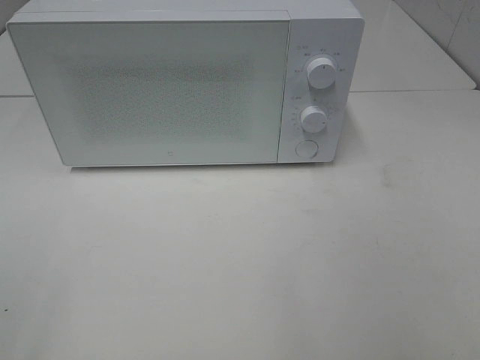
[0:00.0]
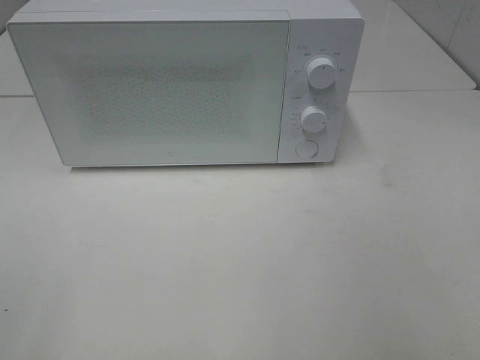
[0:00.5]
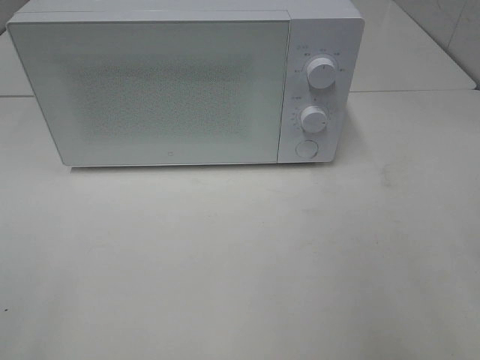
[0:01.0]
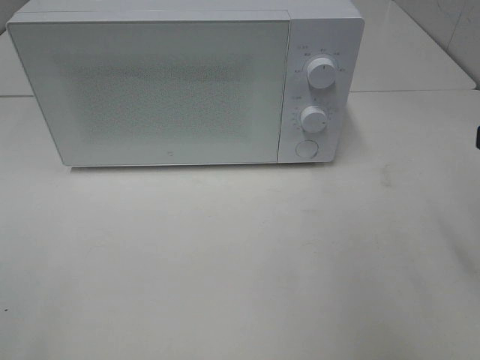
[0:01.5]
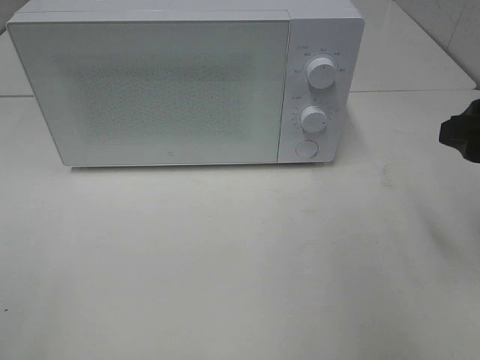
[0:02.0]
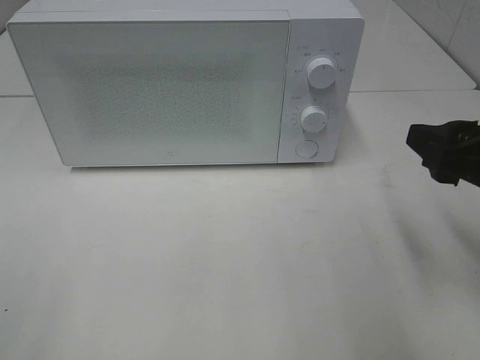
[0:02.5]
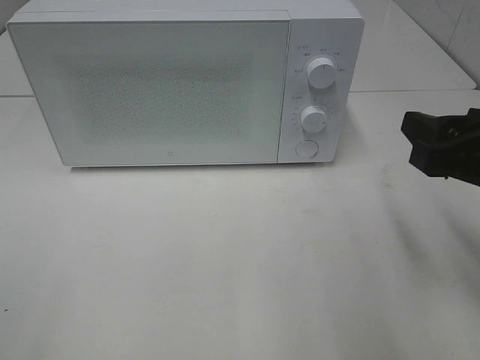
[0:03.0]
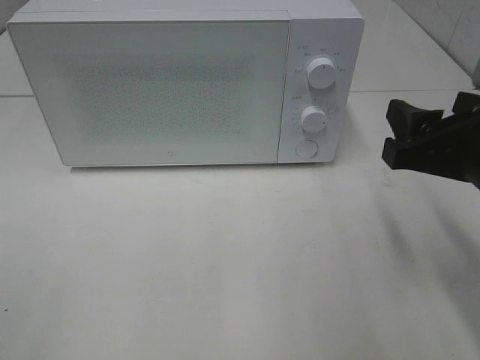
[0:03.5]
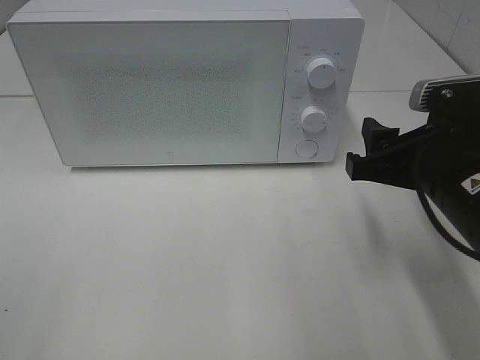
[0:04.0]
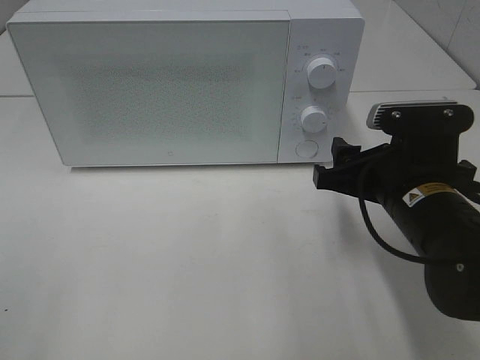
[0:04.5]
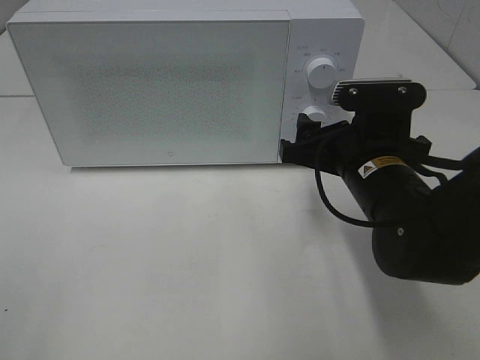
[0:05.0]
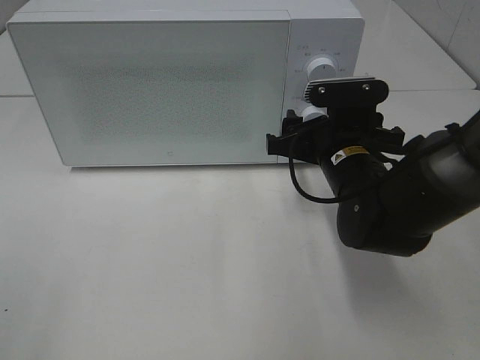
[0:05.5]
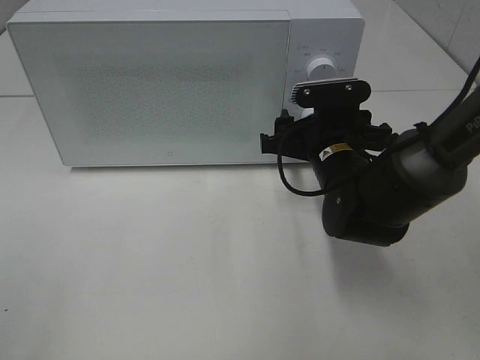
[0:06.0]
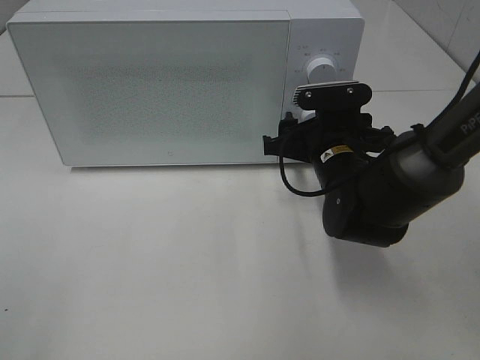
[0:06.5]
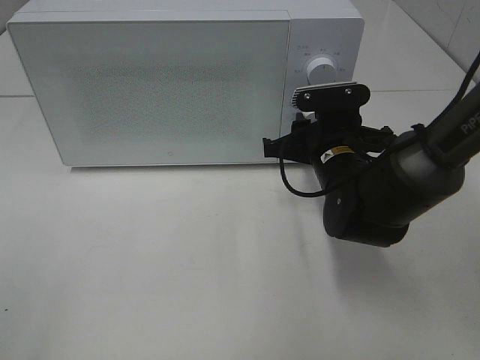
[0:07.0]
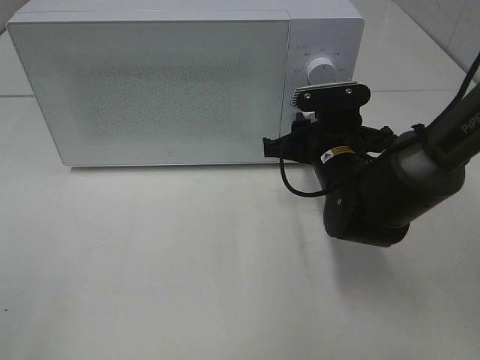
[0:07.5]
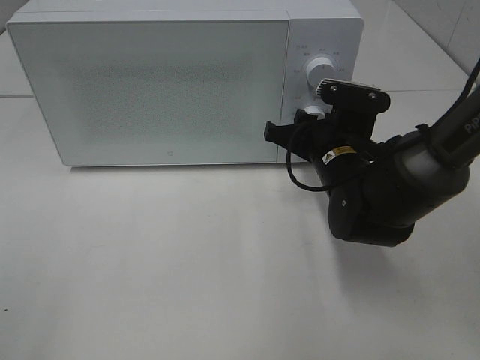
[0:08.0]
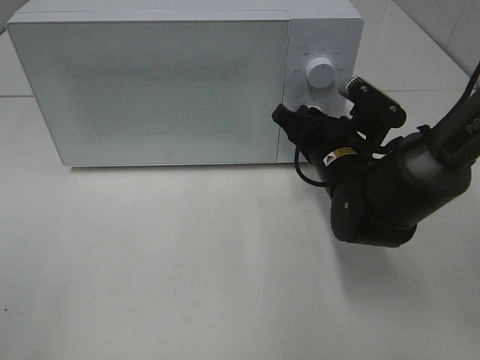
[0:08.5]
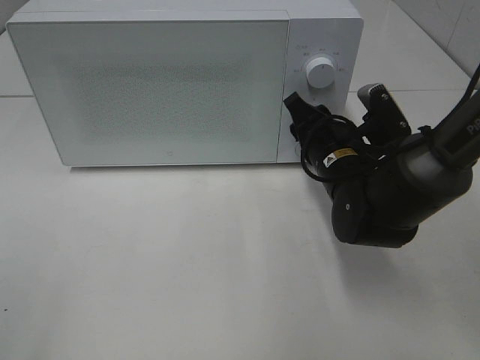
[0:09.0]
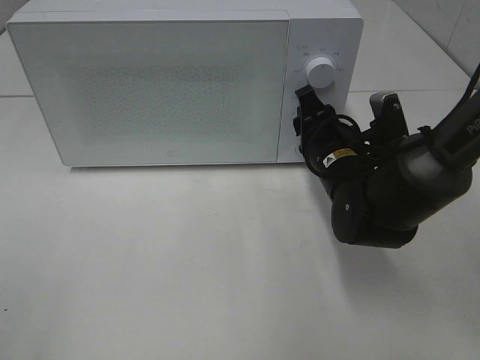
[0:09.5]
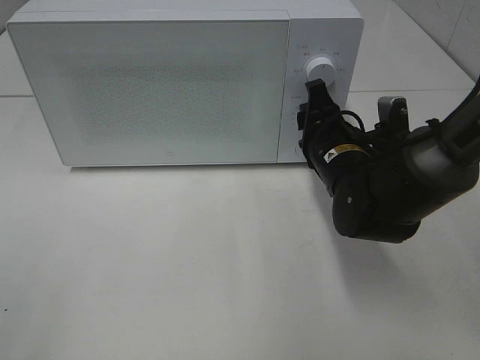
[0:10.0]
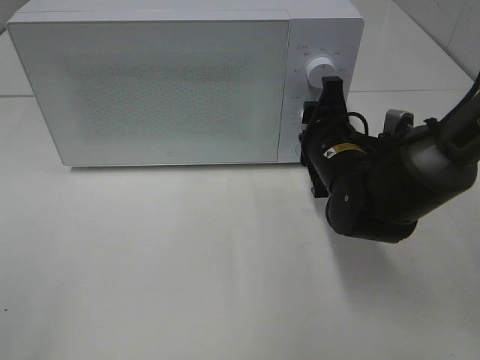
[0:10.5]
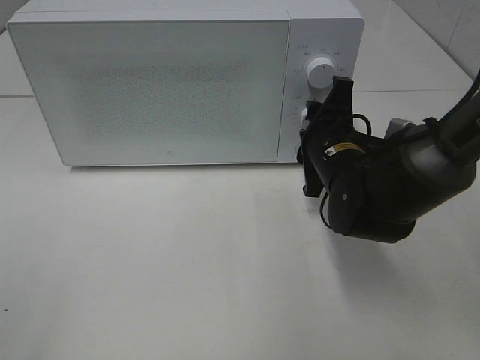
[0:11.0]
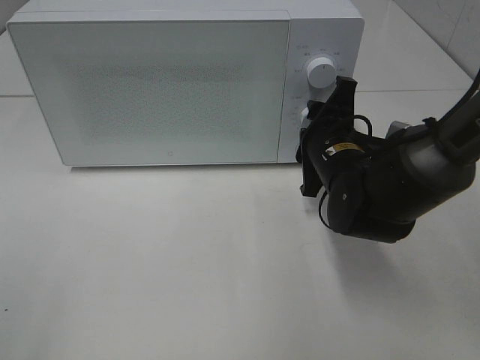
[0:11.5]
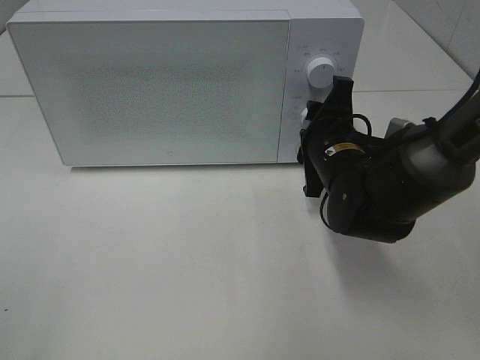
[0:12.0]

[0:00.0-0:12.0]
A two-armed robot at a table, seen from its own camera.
Task of the whole recording: Heat the burger.
0:00.0 to 0:02.0: The right gripper moves forward, some 20 cm.
0:02.0 to 0:04.0: The right gripper moves to the left and downward, approximately 10 cm.
0:04.0 to 0:06.0: The right gripper travels forward, to the left and downward by roughly 15 cm.
0:06.0 to 0:08.0: The right gripper closes up.

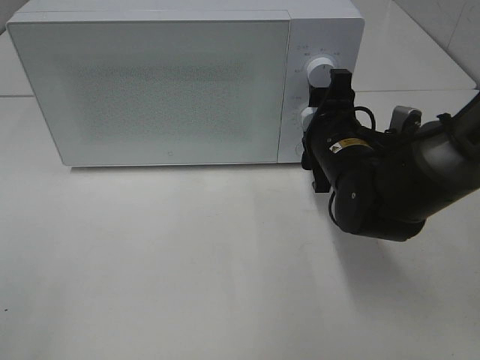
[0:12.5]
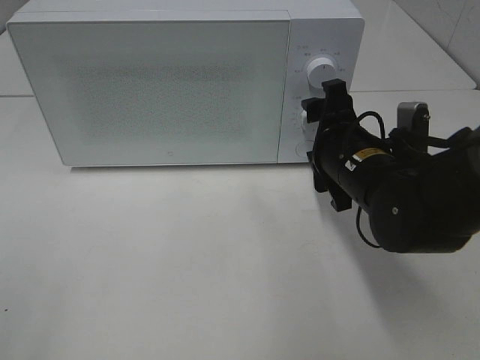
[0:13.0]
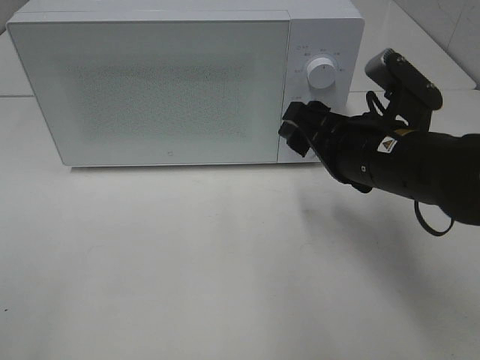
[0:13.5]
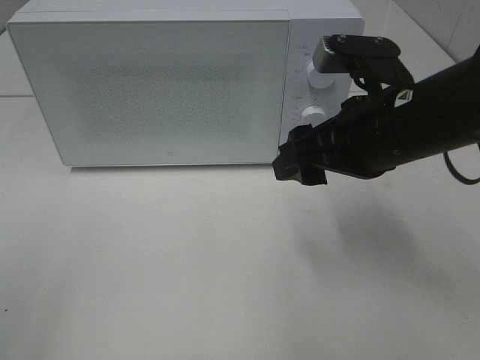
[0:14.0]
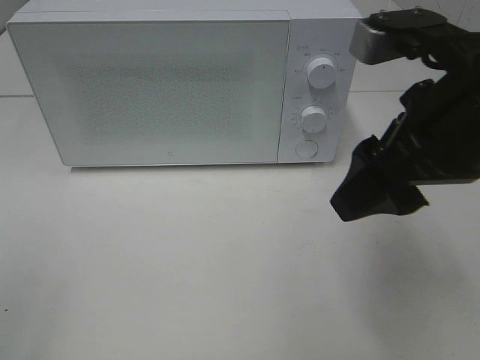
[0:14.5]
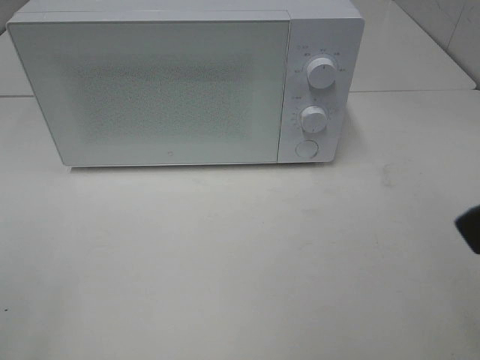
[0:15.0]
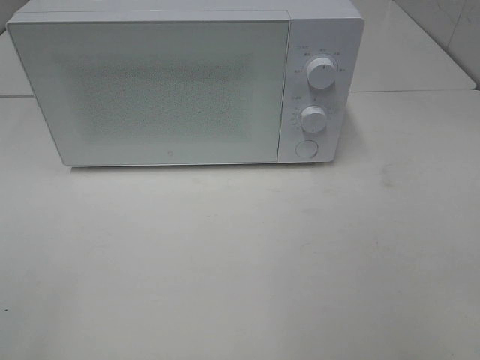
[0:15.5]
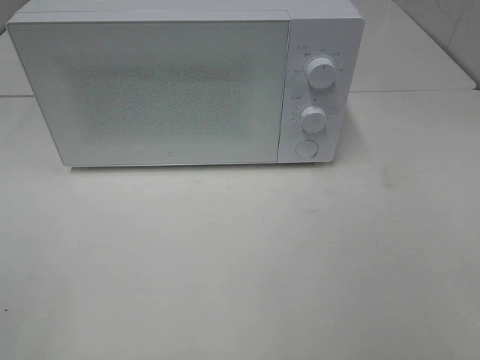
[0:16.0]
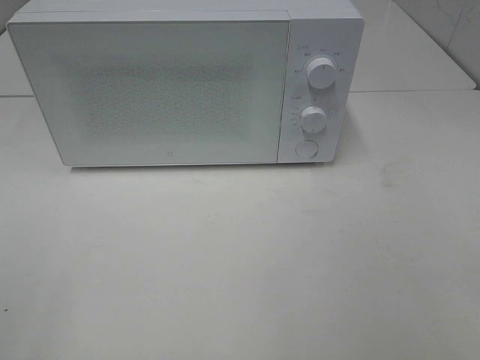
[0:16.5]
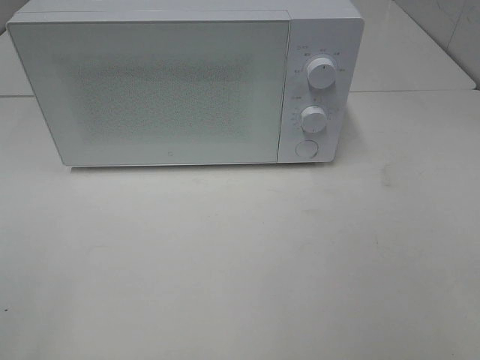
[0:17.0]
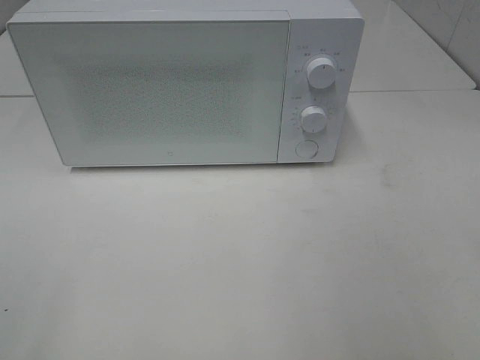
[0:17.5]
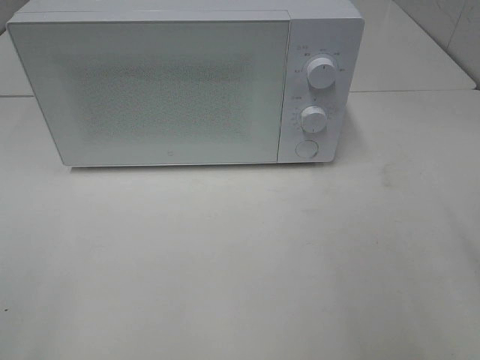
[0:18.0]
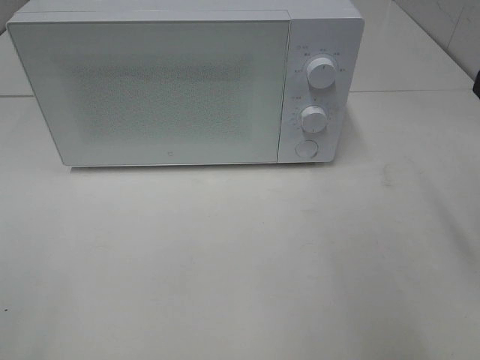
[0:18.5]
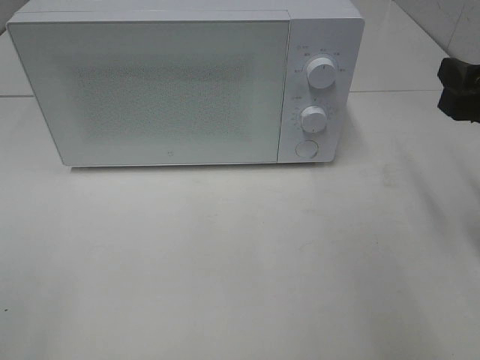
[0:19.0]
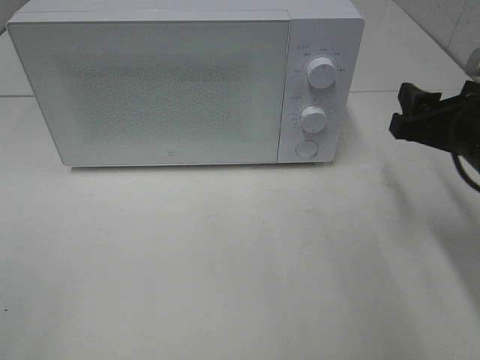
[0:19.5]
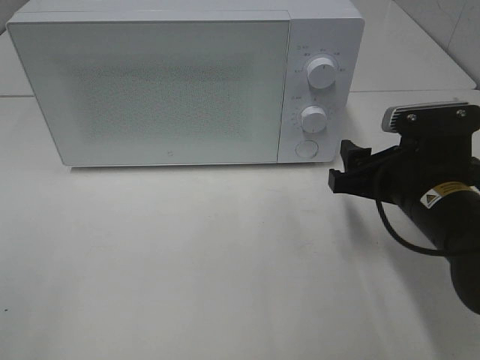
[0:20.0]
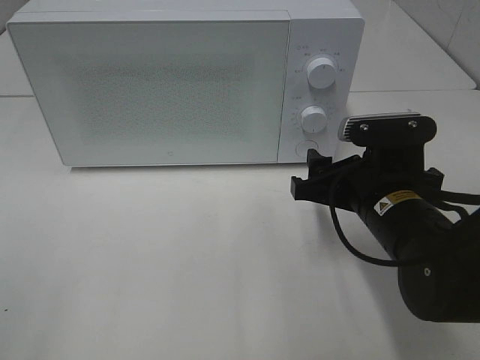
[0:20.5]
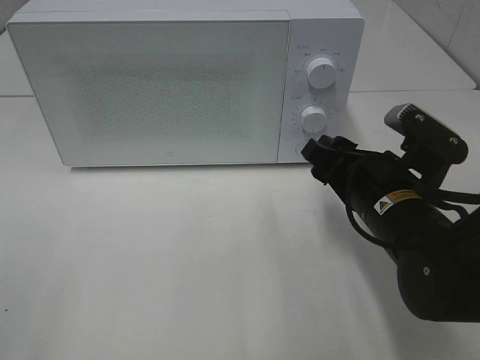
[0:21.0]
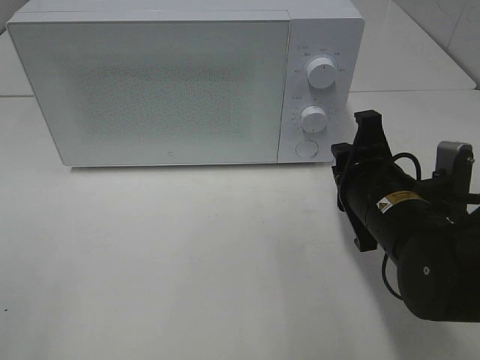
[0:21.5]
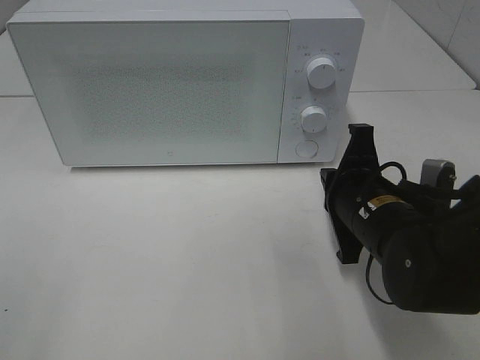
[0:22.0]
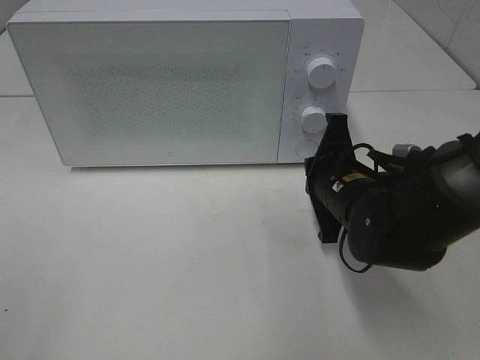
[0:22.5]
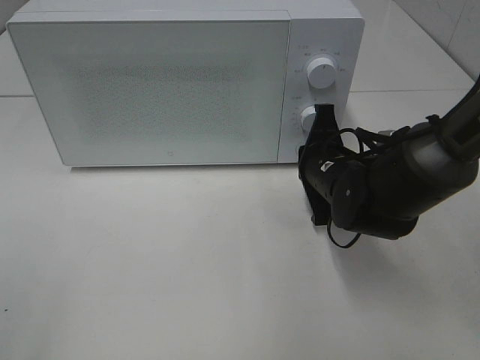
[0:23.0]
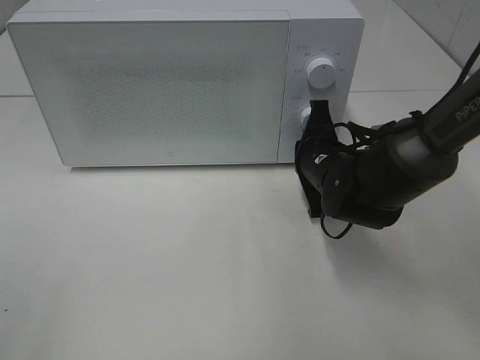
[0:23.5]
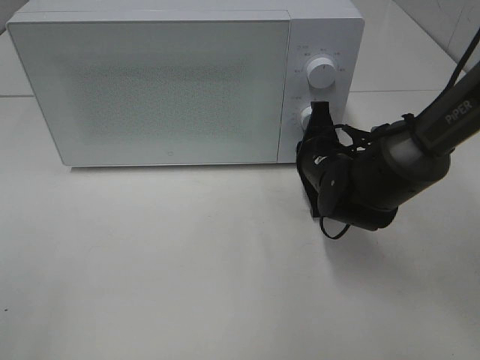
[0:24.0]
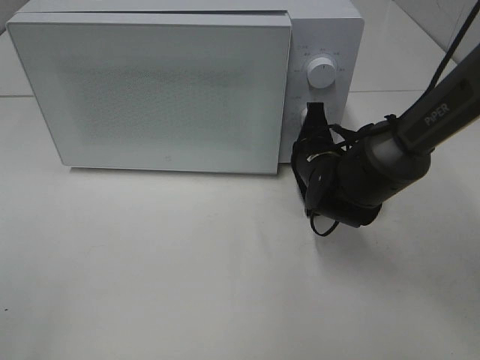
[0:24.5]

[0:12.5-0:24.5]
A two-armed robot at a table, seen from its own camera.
Task of the whole recording: Heat the burger.
0:12.5 to 0:14.5: The right gripper heads upward and backward, covering approximately 20 cm.
0:14.5 to 0:16.5: The right gripper heads backward and to the right, covering approximately 25 cm.
0:18.5 to 0:20.5: The right gripper travels downward, to the left and forward by about 20 cm.
0:20.5 to 0:22.5: The right gripper shifts by approximately 5 cm, and closes its fingers.
0:22.5 to 0:24.5: The right gripper heads forward, covering roughly 5 cm.

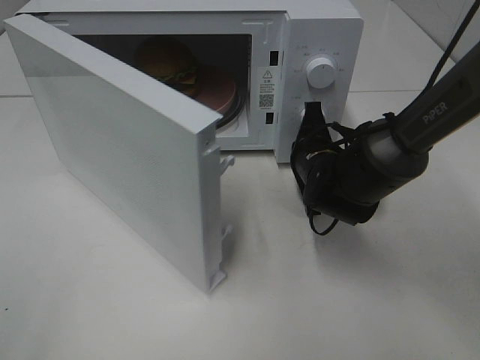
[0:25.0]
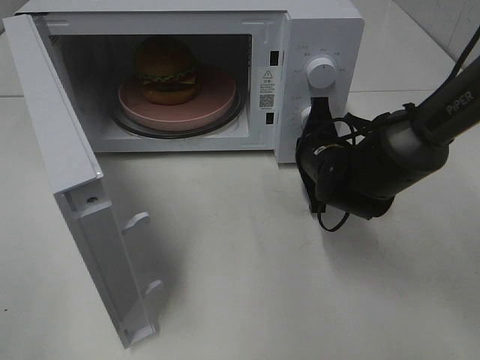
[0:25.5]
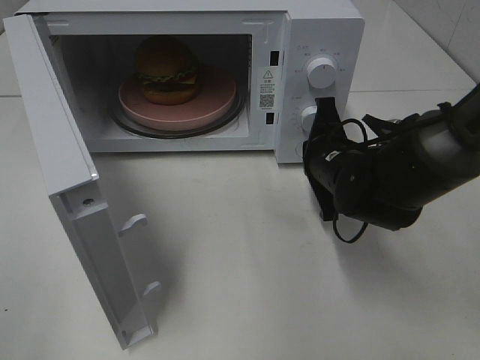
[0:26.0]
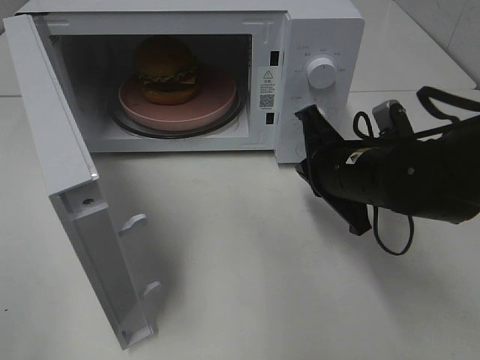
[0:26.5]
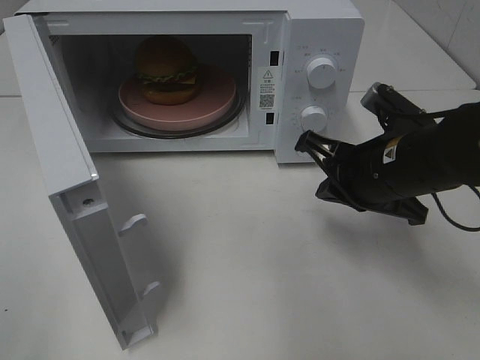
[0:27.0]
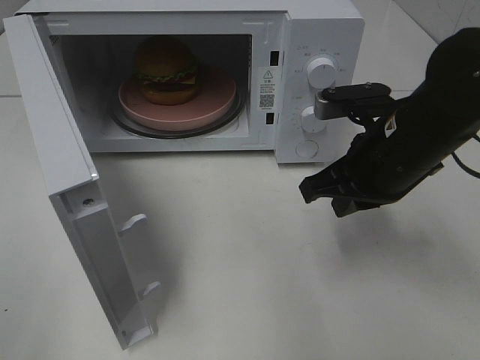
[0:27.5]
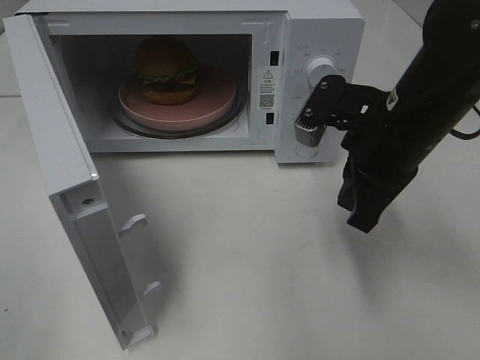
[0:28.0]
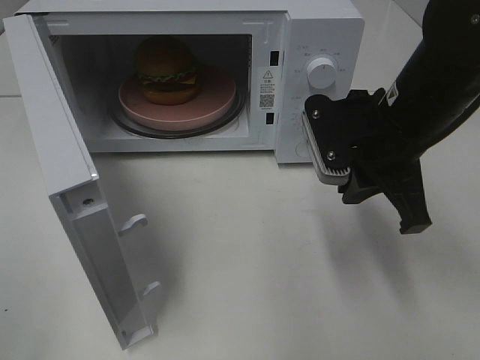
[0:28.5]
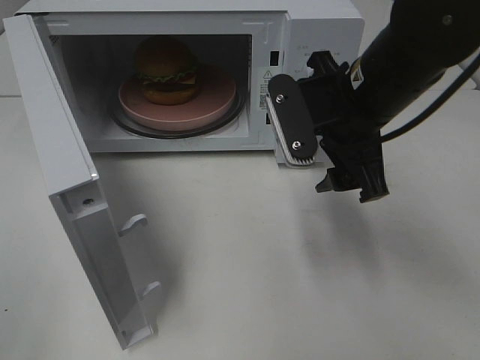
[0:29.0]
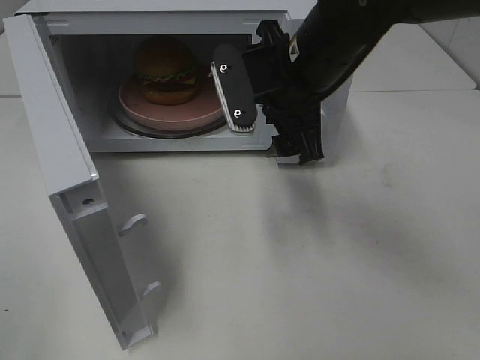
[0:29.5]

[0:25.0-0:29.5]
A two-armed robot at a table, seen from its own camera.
Task of the whole recording: Heat the burger.
0:25.0 to 0:27.0: The right gripper shifts roughly 15 cm backward and upward.
0:27.0 to 0:29.5: The right gripper travels to the left, upward and forward by some 15 cm, and opens up.
